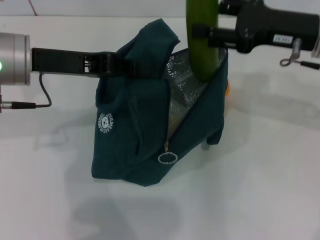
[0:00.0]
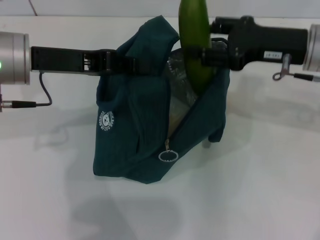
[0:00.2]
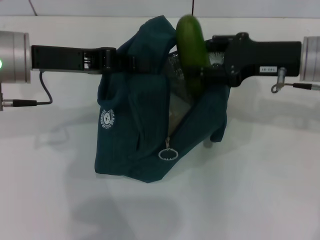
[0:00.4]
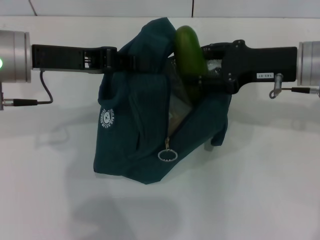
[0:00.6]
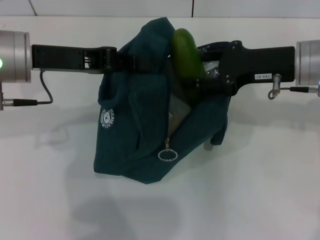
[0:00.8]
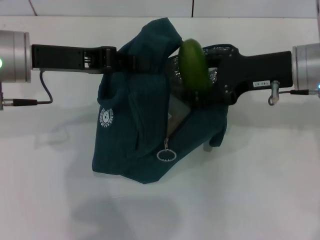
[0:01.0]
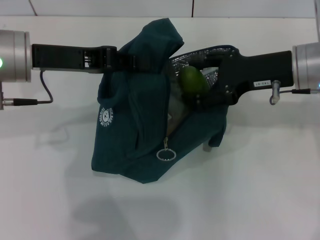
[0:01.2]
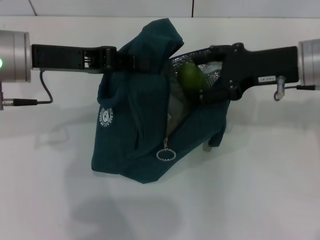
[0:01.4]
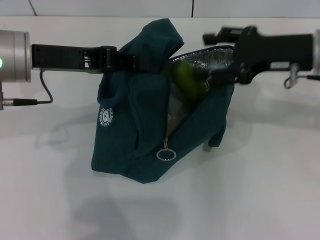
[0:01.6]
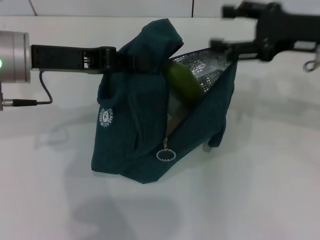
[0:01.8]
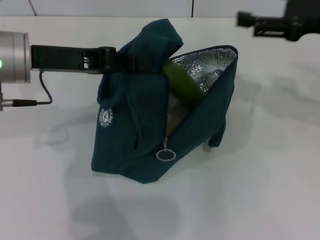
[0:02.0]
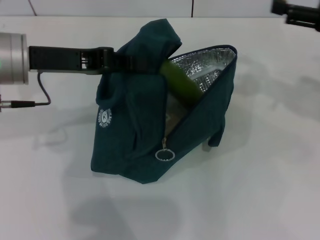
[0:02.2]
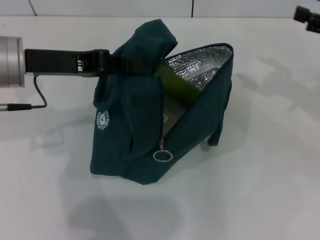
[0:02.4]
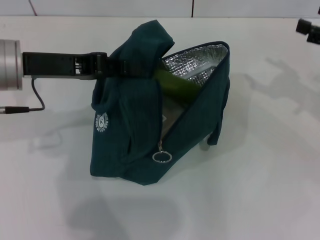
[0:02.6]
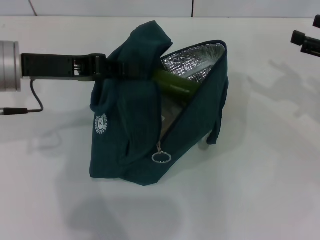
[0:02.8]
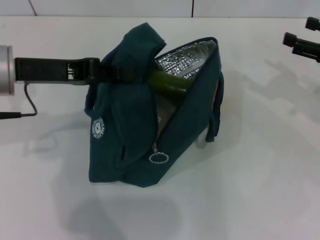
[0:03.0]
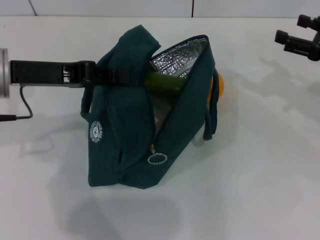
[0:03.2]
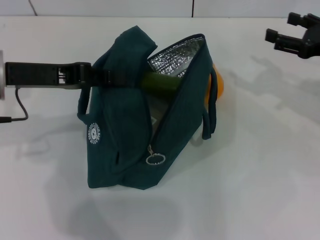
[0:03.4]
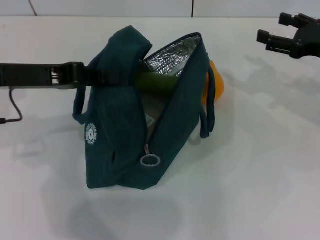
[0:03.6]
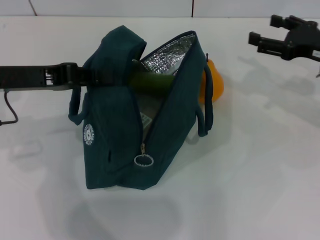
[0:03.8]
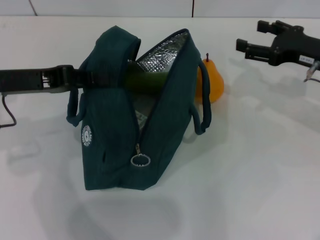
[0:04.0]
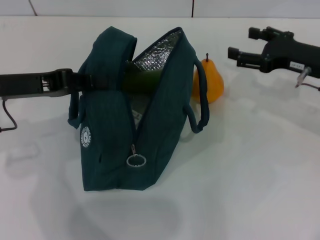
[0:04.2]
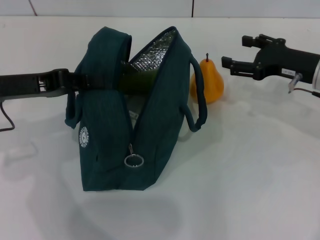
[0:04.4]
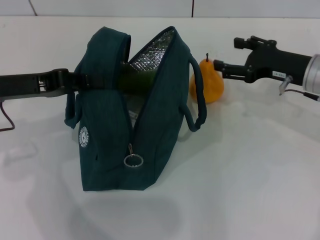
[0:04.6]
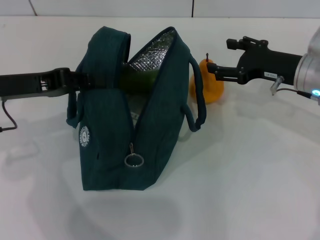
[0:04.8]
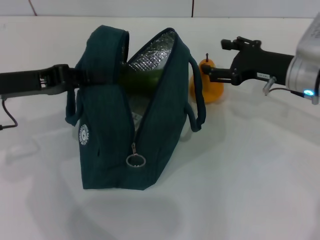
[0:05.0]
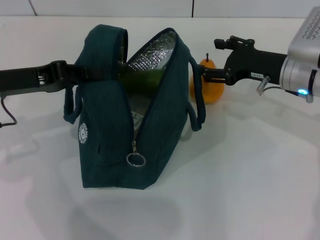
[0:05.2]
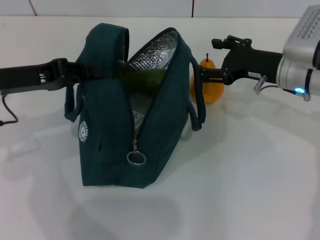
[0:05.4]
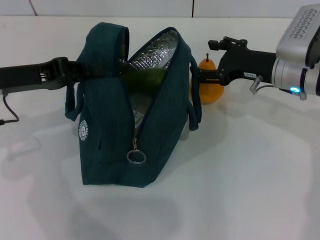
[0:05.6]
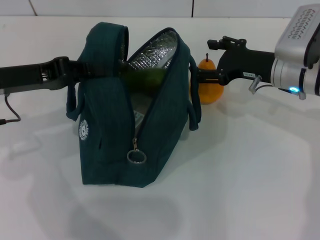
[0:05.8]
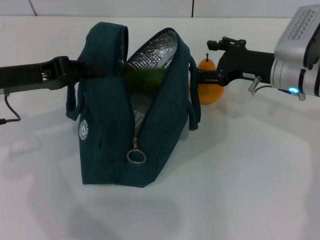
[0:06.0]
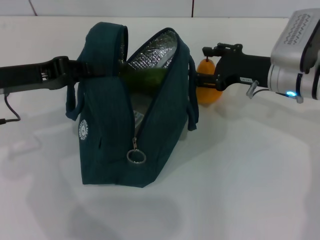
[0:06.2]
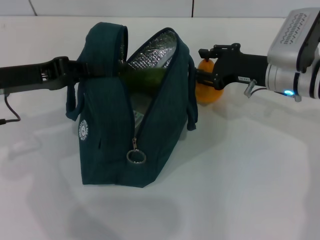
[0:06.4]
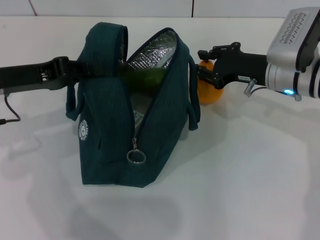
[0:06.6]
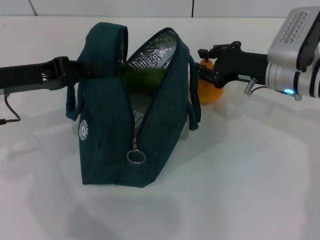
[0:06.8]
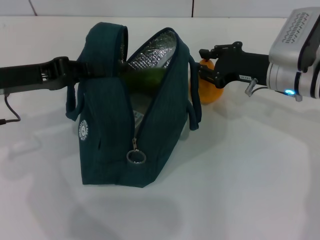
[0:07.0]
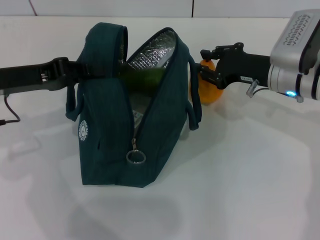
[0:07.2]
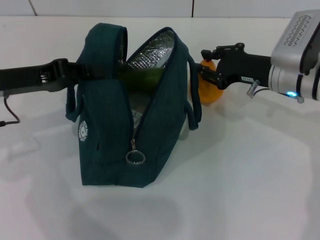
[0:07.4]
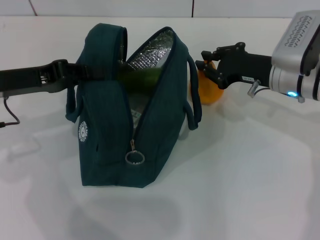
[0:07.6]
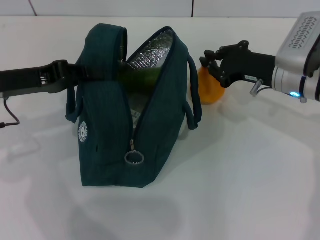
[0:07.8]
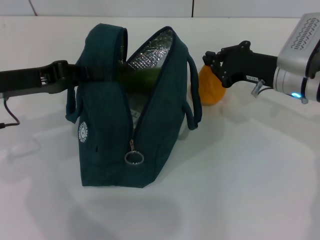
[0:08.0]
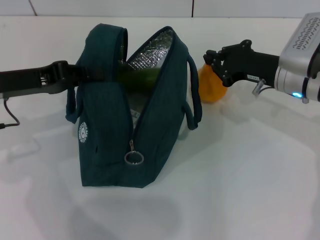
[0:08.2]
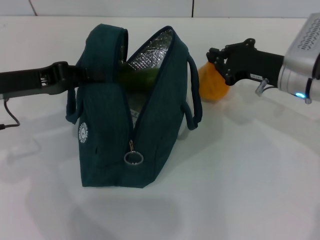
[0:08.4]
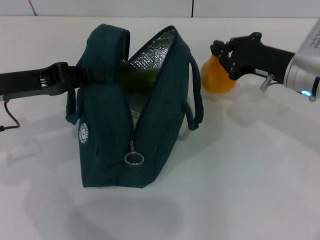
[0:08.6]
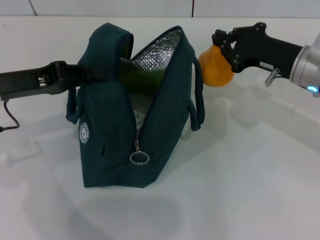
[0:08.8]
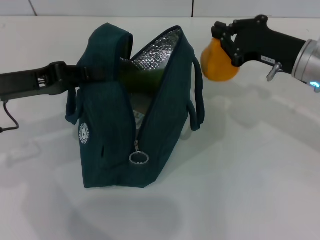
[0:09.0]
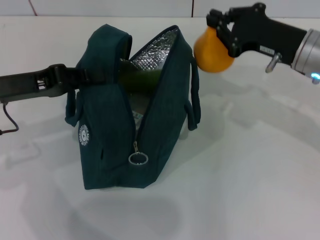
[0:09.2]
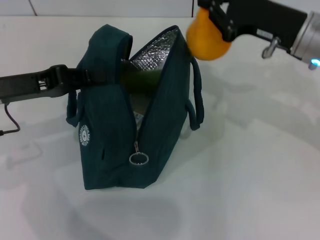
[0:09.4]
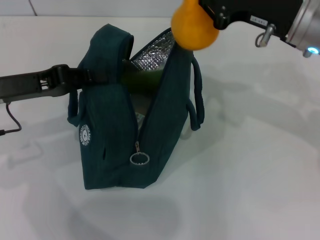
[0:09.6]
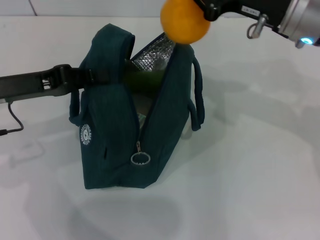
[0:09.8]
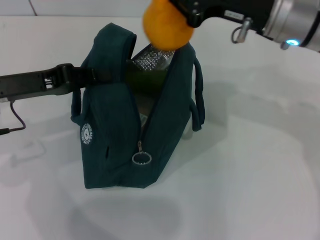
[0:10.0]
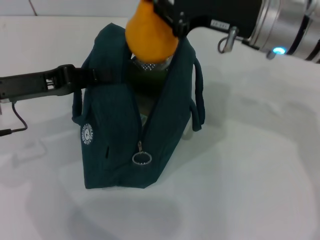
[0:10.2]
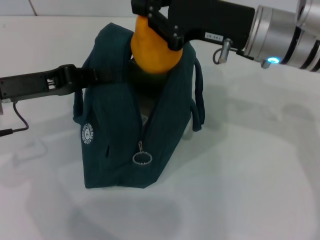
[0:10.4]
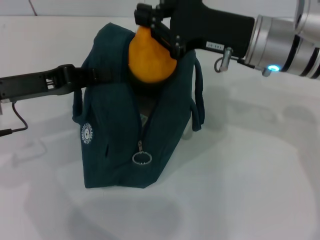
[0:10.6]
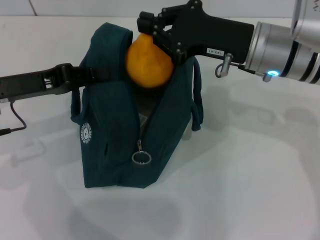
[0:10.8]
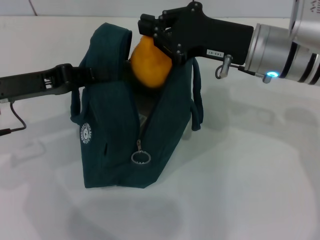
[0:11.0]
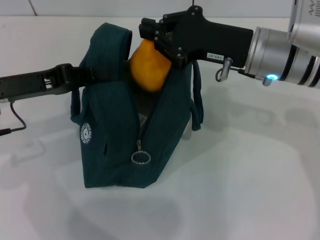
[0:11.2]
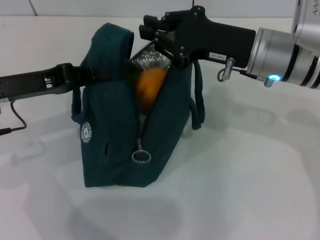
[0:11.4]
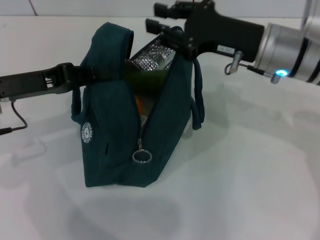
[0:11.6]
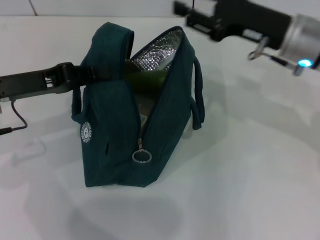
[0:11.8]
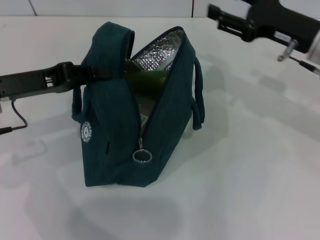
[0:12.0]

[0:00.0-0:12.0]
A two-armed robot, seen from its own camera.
Step, 0:02.0 to 0:08.0: Grab the pear with your right hand.
0:00.0 to 0:01.6: The grippers stay close to where they were, moving slightly.
0:01.6 to 0:03.0: The right gripper heads to the right and downward, covering approximately 15 cm.
0:03.0 to 0:04.4: The right gripper travels to the left by some 10 cm.
0:04.4 to 0:06.0: The right gripper is displaced to the left by some 5 cm.
0:06.0 to 0:07.6: The right gripper closes its fingers.
0:07.6 to 0:09.0: The grippers make only small movements.
0:09.0 to 0:10.4: The right gripper moves to the left and upward, roughly 10 cm.
0:10.4 to 0:12.0: The right gripper is displaced to the right by approximately 10 cm, and opens its fingers.

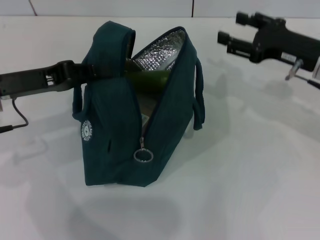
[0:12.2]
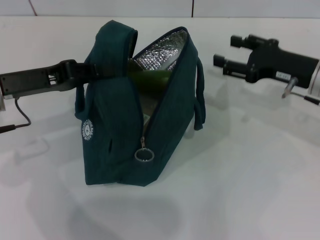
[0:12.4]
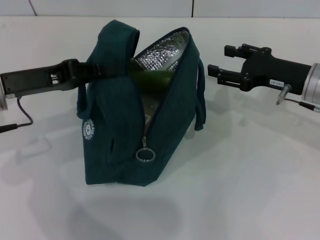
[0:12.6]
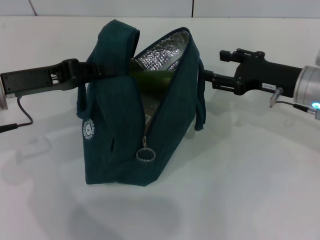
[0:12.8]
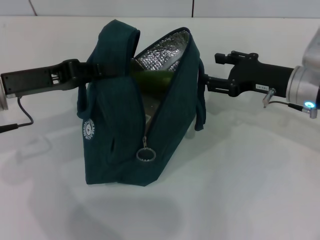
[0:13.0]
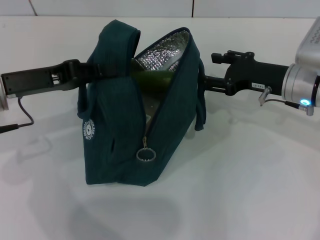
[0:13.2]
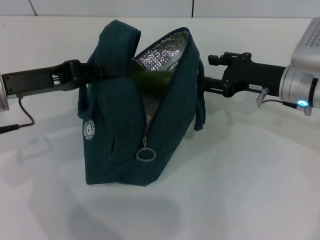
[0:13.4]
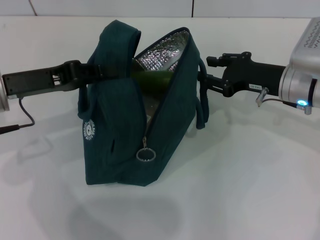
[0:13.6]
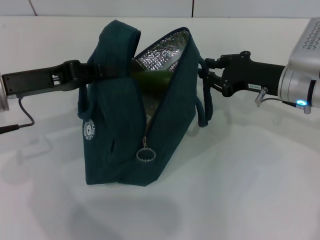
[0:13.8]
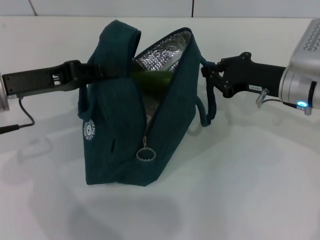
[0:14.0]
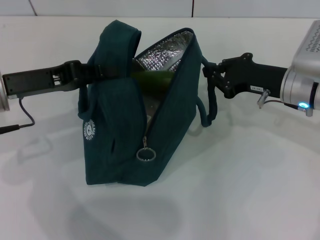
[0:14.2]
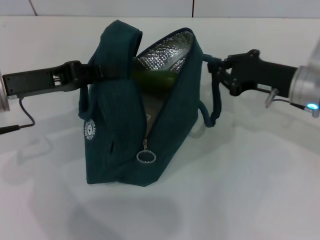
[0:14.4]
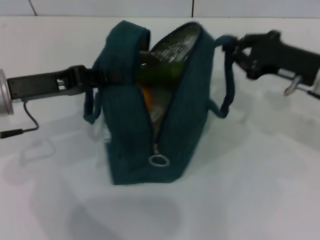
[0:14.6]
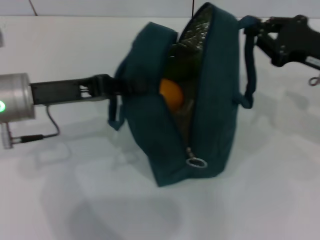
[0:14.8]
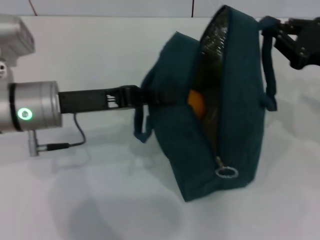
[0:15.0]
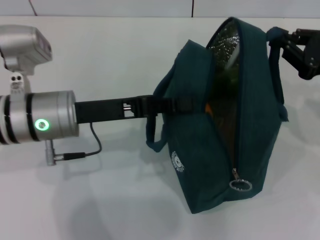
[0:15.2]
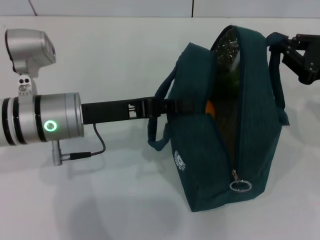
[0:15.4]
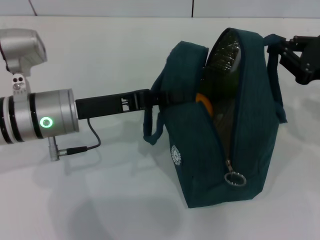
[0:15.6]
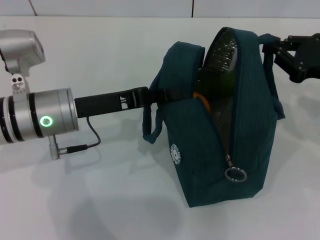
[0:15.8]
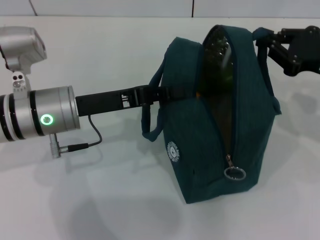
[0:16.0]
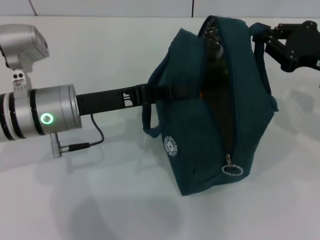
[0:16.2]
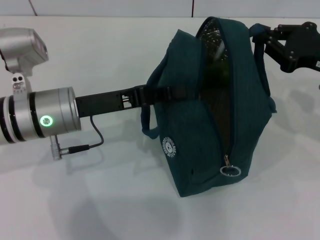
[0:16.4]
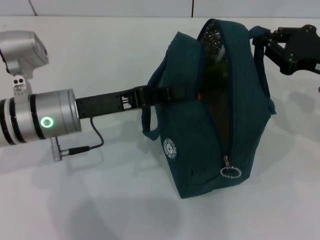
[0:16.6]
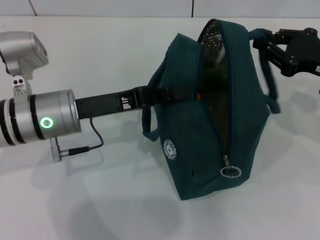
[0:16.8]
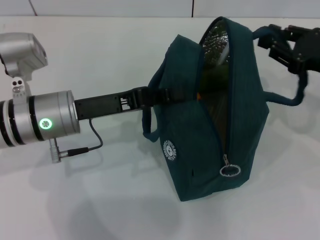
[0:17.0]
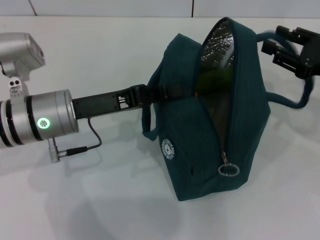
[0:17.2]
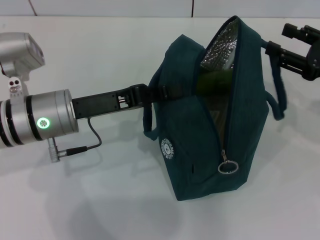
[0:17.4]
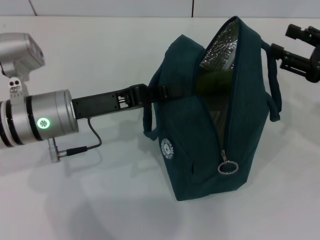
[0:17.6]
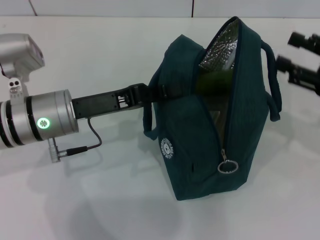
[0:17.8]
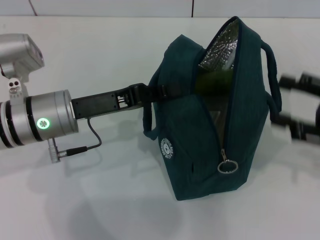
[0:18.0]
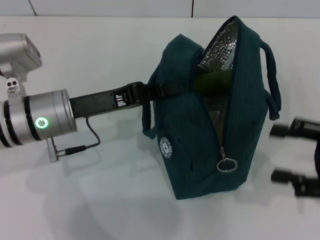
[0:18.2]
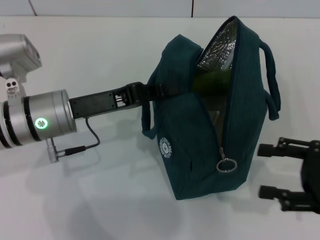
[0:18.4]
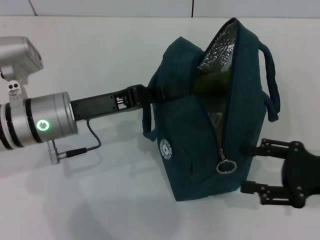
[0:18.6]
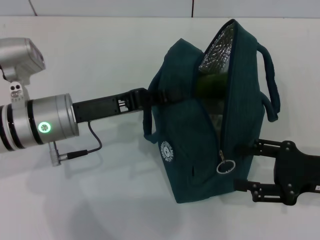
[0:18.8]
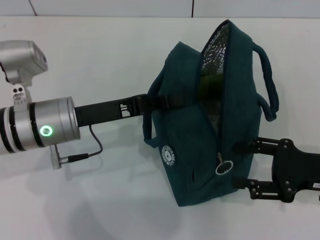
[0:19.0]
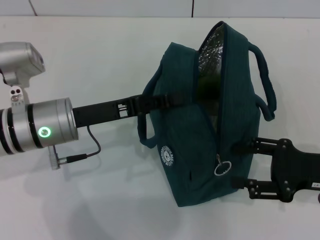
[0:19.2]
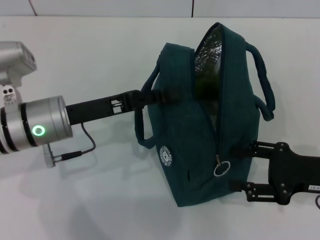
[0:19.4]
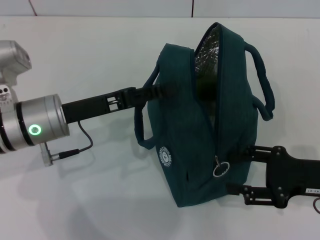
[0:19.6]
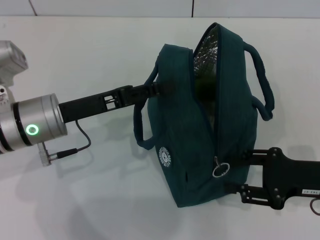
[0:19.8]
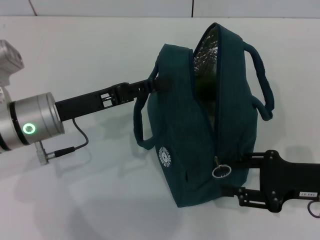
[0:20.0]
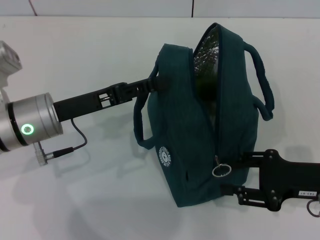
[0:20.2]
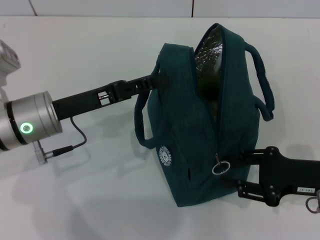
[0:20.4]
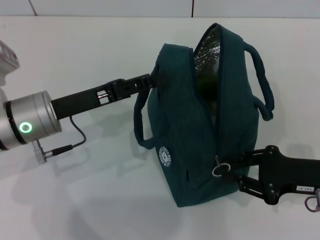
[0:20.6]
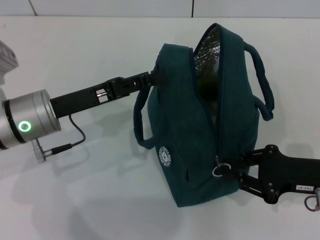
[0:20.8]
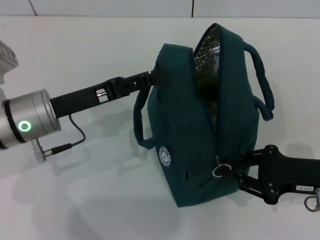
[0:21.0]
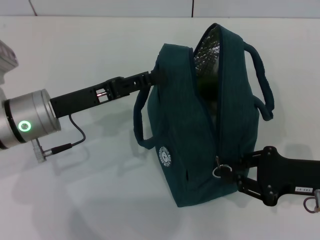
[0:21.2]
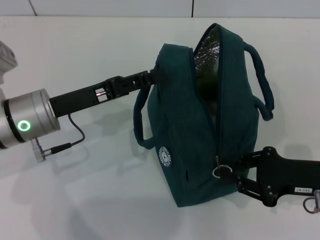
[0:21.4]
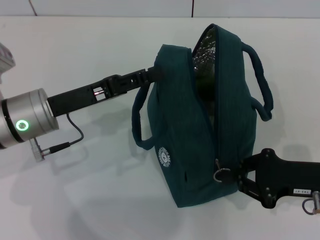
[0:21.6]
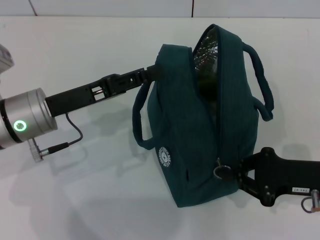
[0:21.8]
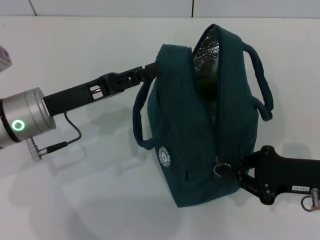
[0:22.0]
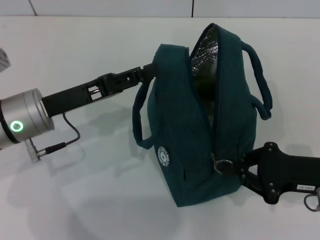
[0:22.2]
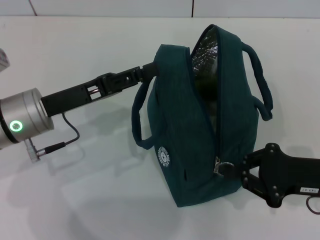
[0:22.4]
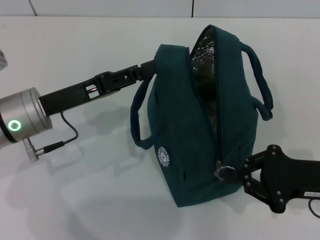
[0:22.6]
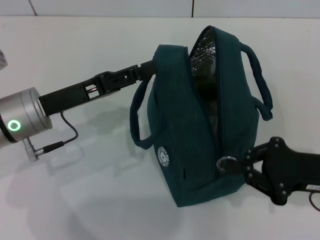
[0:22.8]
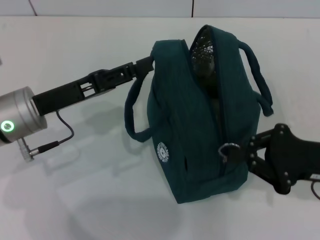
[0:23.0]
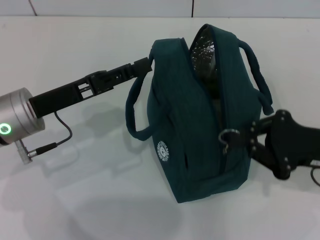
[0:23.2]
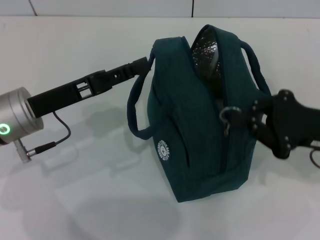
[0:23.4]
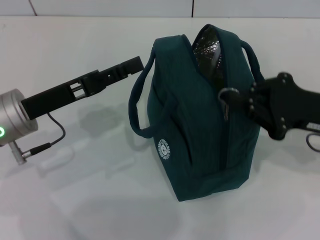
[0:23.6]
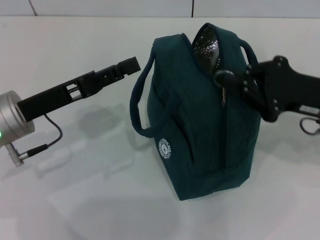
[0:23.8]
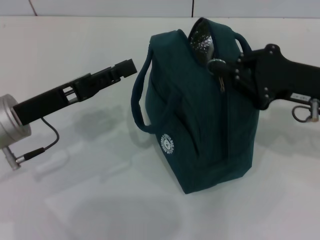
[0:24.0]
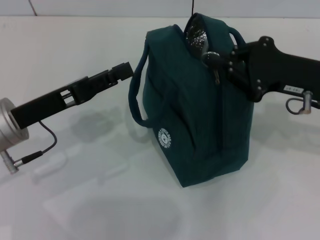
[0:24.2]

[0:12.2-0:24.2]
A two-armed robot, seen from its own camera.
Step, 0:12.2 to 0:17.6: Hold the lunch bag with your right hand.
Step, 0:17.8 to 0:21.8: Hold the lunch bag with your left hand.
0:12.2 to 0:13.8: The right gripper changes place by roughly 5 cm.
0:13.8 to 0:15.2: The grippers both shift to the right by about 10 cm. The right gripper closes its fingers.
0:15.2 to 0:16.6: The grippers move only a little.
0:16.6 to 0:18.2: The right gripper shifts approximately 10 cm backward, and opens up.
0:18.2 to 0:19.8: The right gripper is displaced downward by approximately 5 cm; the left gripper opens up.
0:19.8 to 0:21.2: The right gripper closes.
0:21.2 to 0:22.6: The grippers move only a little.
0:22.6 to 0:24.2: The right gripper travels forward and upward by roughly 10 cm.
